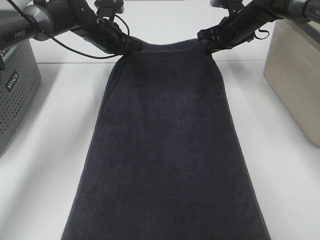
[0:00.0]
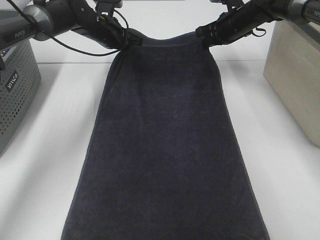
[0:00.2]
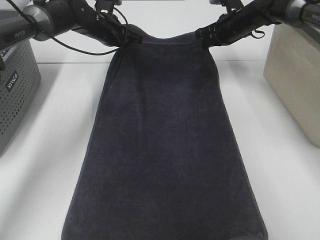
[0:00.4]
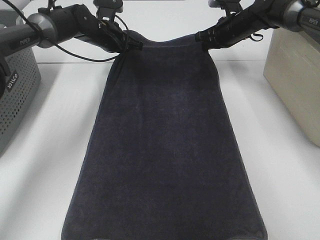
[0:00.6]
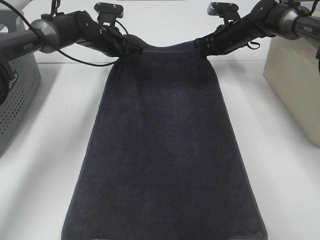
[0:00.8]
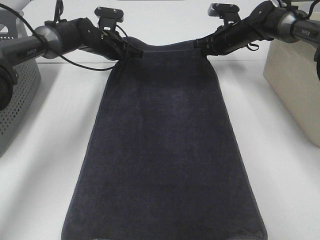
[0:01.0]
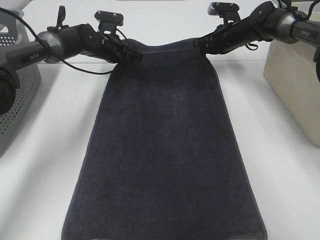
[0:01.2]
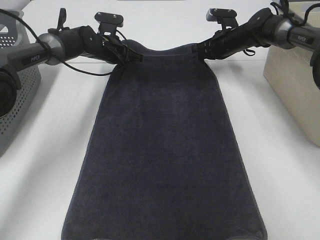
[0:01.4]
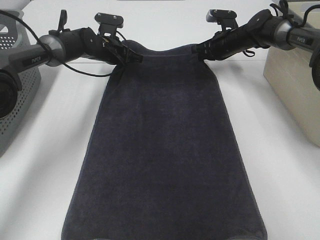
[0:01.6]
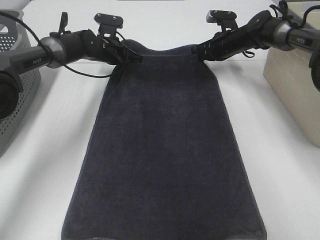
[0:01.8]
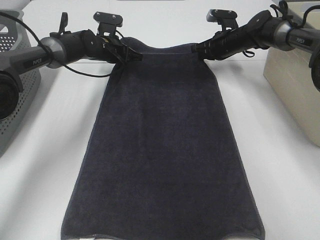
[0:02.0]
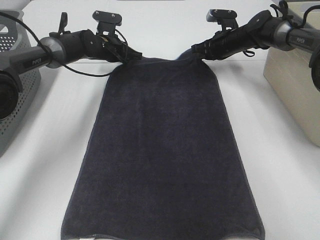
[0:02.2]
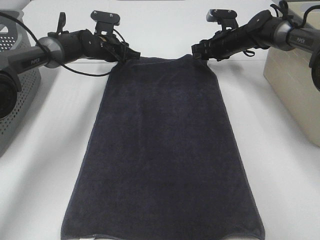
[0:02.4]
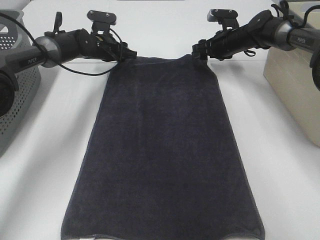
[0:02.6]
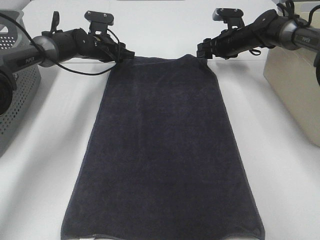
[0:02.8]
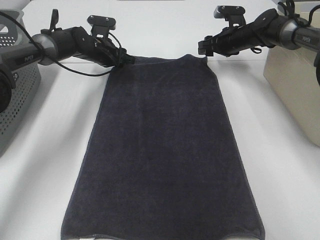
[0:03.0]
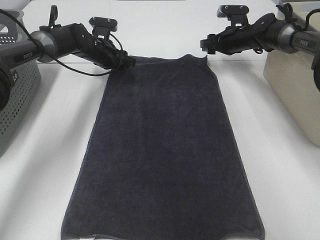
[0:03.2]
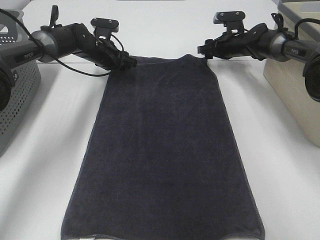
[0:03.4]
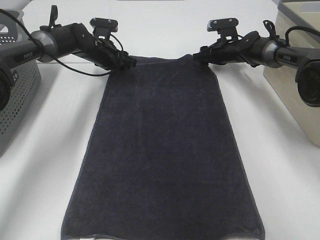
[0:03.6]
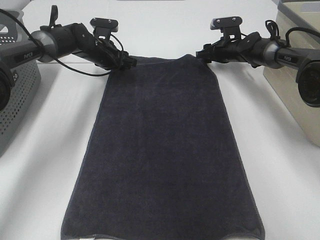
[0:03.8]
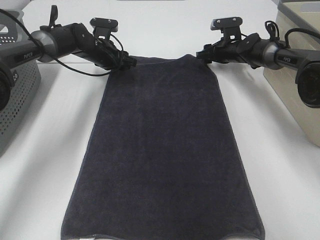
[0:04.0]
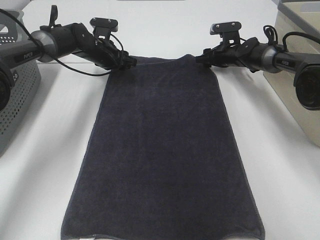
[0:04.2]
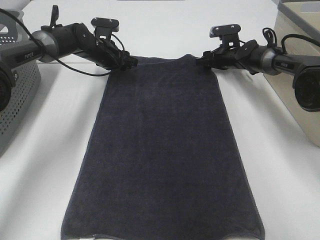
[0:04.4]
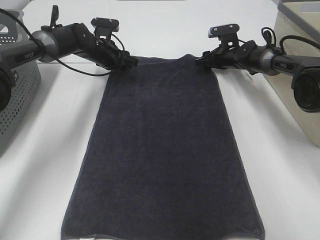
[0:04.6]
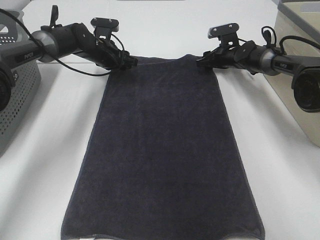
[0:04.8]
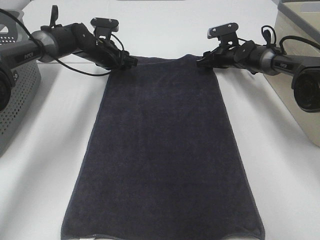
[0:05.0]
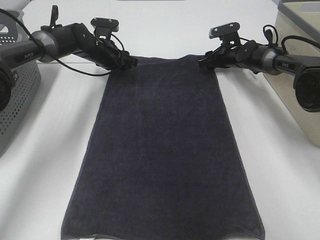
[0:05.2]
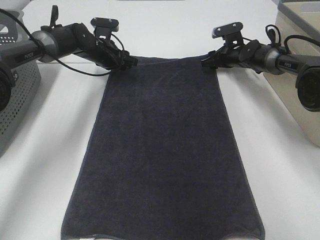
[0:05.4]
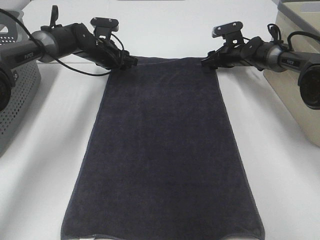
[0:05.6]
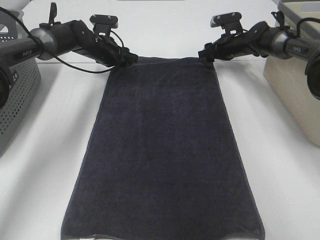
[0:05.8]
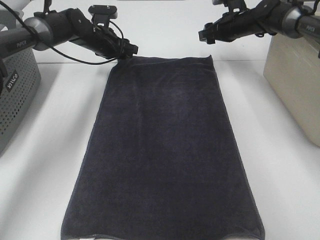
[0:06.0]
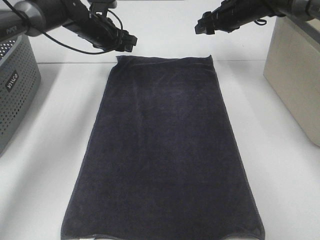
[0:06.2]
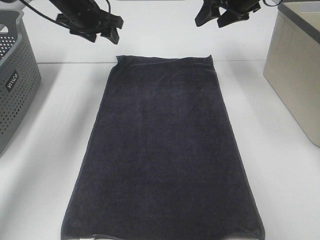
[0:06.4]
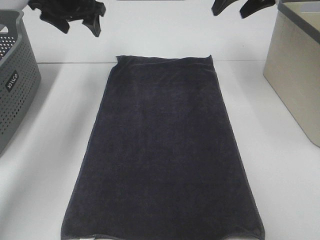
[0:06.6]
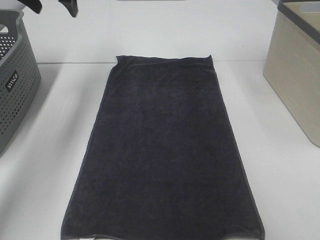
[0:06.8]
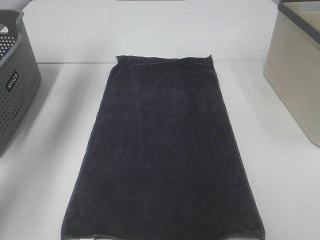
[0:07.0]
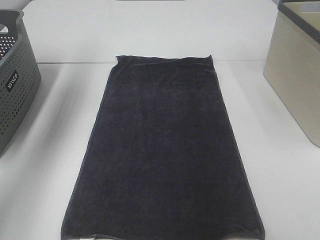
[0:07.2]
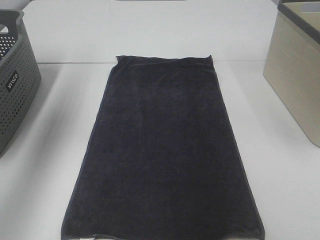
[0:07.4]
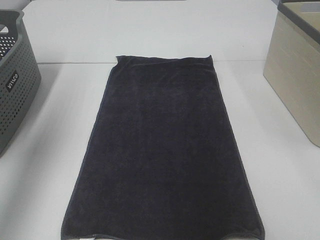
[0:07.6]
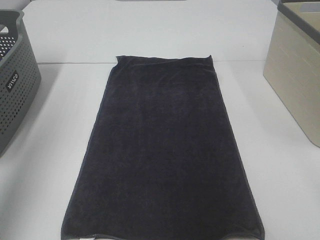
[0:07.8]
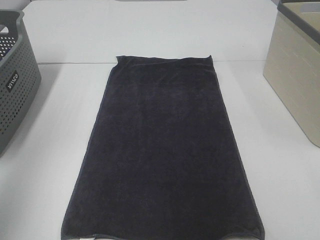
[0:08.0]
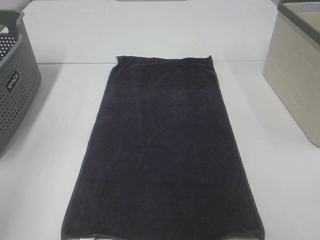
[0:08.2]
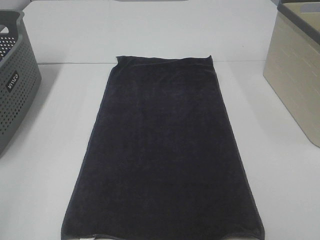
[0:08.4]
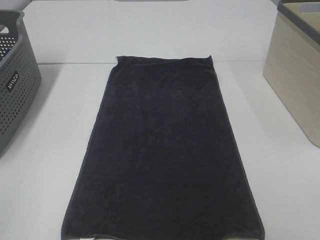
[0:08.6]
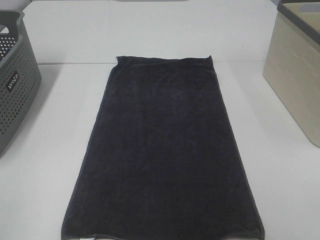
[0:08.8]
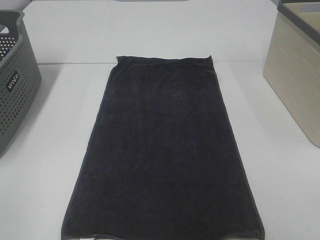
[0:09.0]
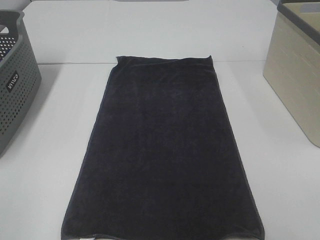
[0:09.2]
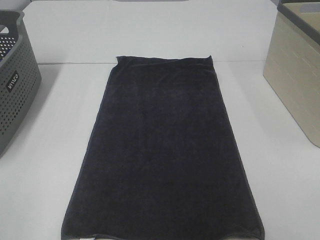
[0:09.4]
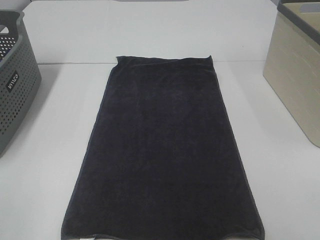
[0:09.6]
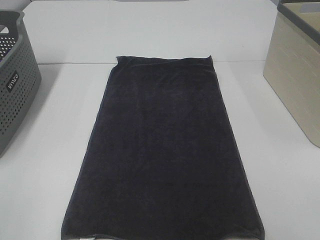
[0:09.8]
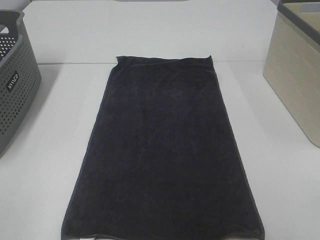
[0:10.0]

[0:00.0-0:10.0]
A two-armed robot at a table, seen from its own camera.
Task of the whole recording: Remove the towel and place it.
0:00.0 to 0:01.4: The grippers both shift downward by roughly 5 cm.
0:01.4 to 0:02.8: The left gripper opens. The right gripper opens up.
0:02.8 to 0:04.2: The right gripper goes some 5 cm downward.
0:04.2 to 0:05.8: The grippers stay close to where they were, moving slightly.
0:05.8 to 0:07.2: The left gripper shifts about 35 cm upward, backward and to the left. Meanwhile the right gripper is displaced upward and backward by some 40 cm.
0:07.2 to 0:08.6: The left gripper moves backward, approximately 40 cm.

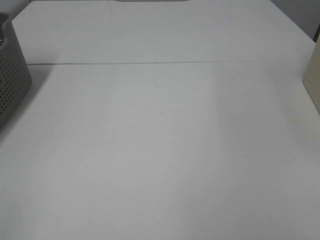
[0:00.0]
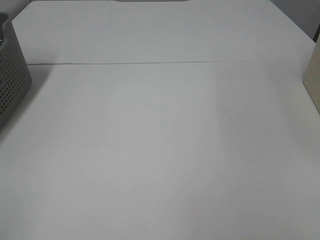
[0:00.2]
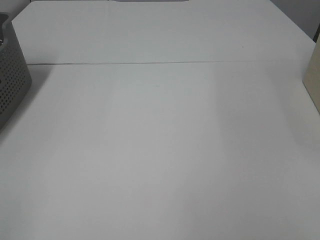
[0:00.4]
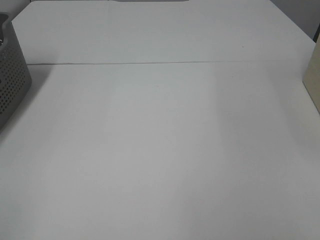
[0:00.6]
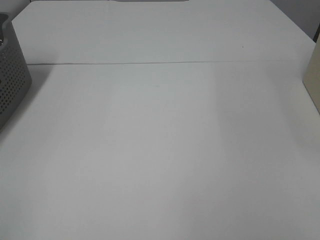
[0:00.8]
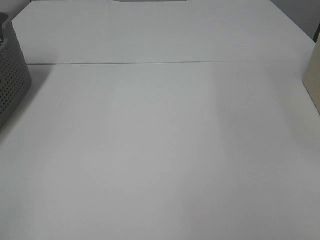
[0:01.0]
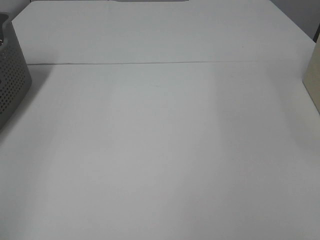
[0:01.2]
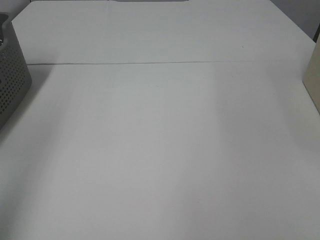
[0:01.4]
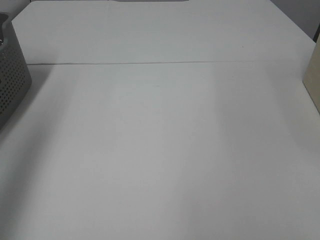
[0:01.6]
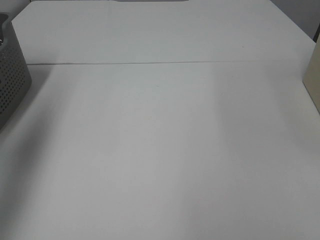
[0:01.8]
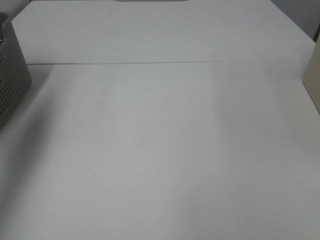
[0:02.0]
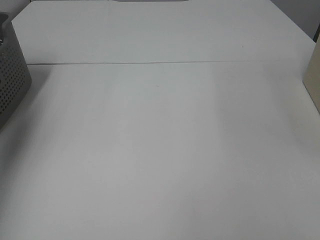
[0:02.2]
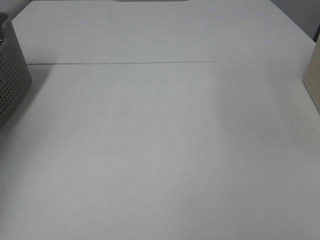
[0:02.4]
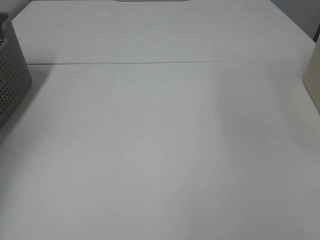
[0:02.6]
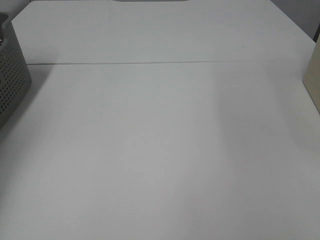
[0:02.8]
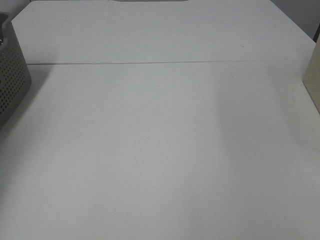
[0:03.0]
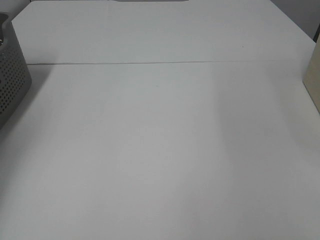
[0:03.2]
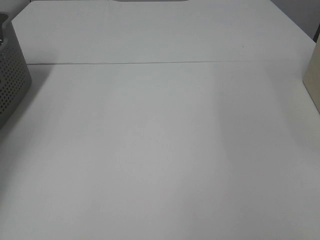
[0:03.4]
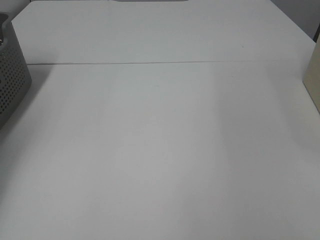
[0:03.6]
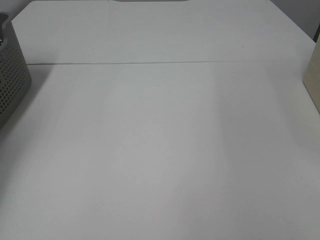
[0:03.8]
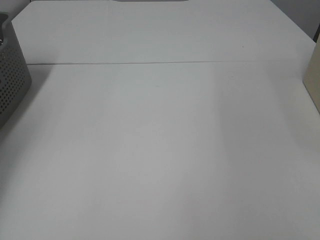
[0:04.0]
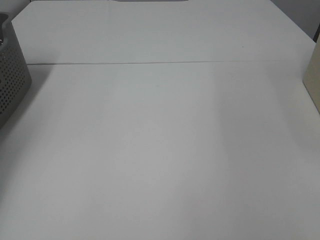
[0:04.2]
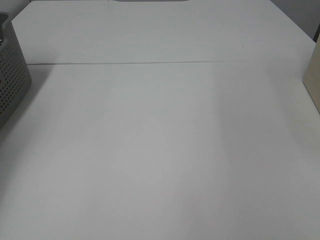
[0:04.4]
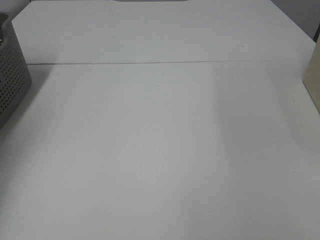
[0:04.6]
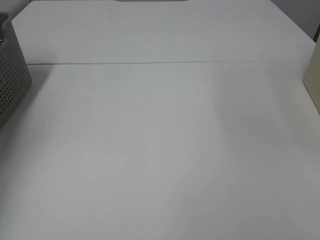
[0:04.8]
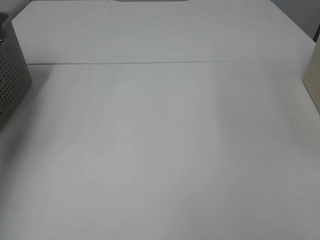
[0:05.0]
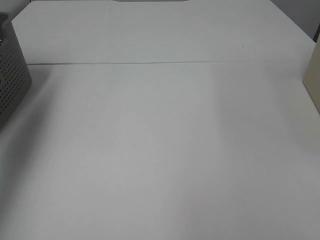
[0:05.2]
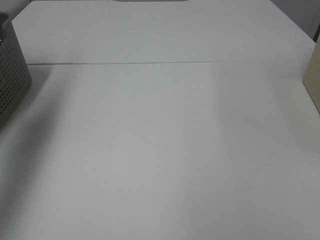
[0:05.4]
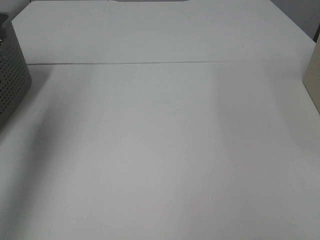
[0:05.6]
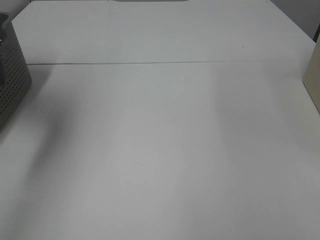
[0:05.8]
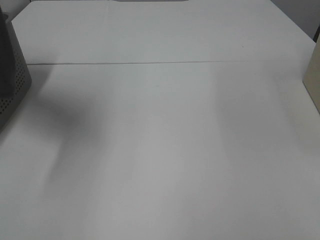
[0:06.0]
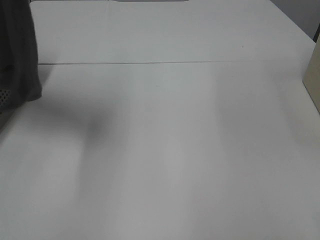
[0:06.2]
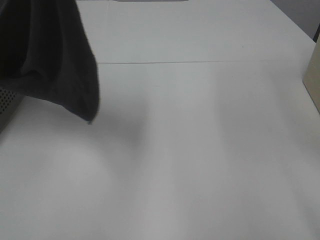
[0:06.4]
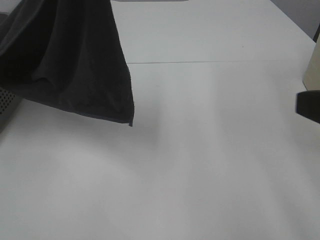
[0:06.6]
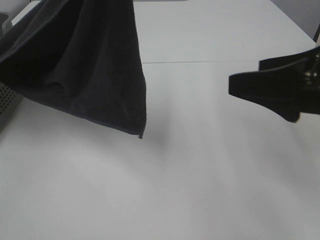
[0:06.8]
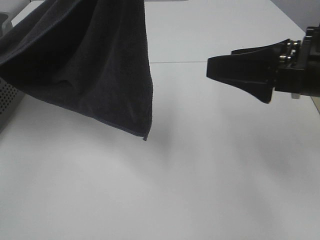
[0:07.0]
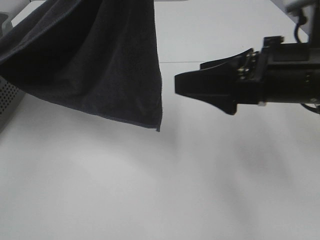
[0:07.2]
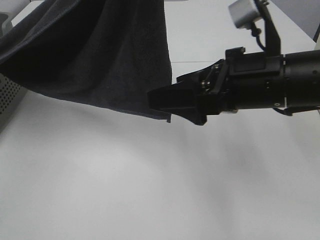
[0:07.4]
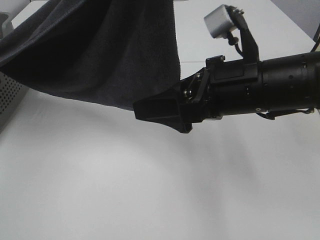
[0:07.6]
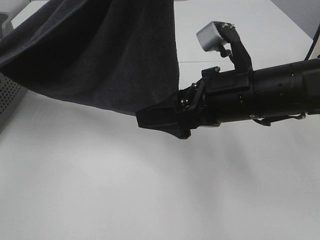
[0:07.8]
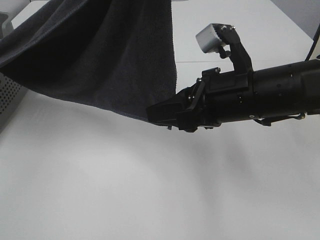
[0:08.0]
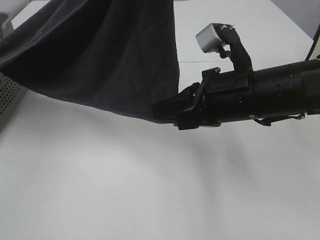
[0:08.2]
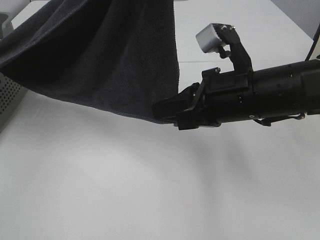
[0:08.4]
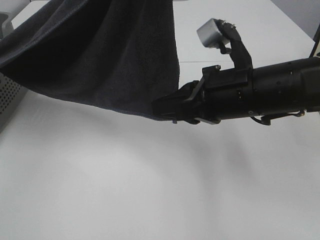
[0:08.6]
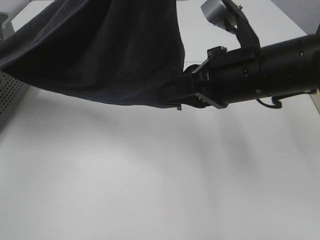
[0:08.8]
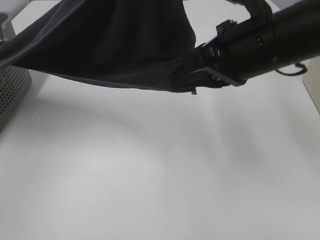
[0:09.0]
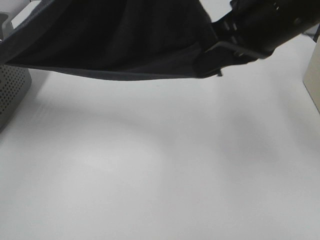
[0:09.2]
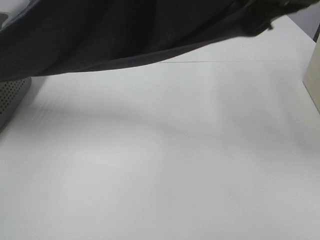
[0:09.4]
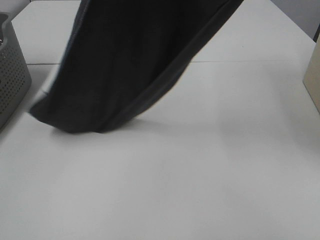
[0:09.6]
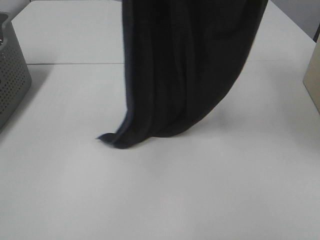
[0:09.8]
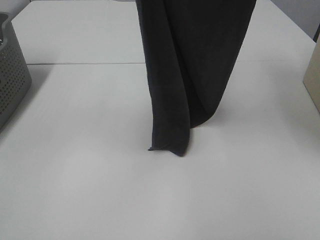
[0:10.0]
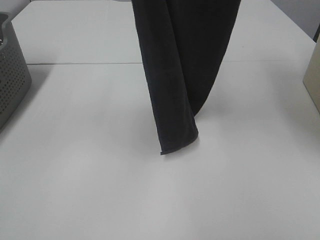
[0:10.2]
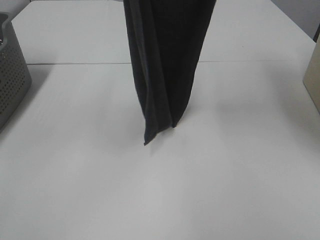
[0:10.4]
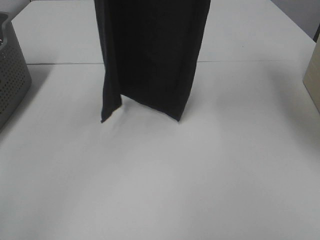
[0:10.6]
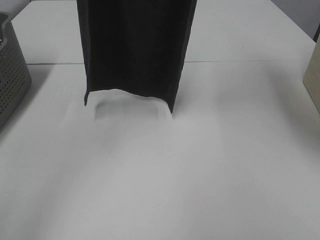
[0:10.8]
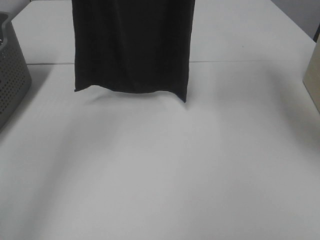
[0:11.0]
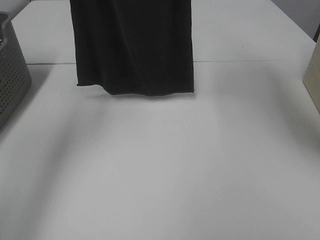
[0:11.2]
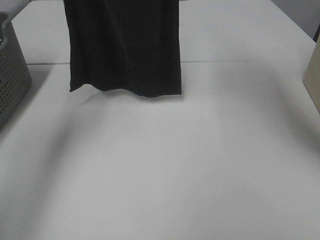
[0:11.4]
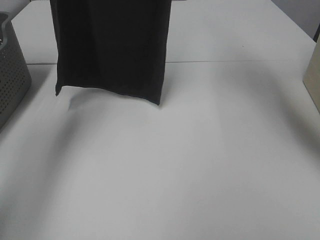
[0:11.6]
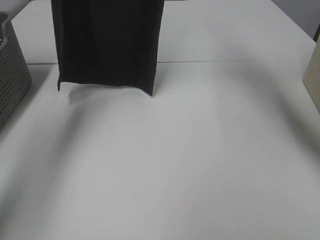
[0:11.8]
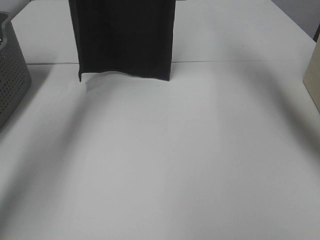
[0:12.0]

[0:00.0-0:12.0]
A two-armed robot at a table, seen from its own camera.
Task of the whole recording: Remove the towel and place it.
Step, 0:05.8 to 0:09.8: Right hand: grab a corner of the grey towel and straighten it.
0:00.0 to 0:01.6: The left gripper goes some 25 cm forward and upward.
0:01.6 to 0:03.0: The left gripper goes roughly 30 cm forward, downward and to the left.
0:04.4 to 0:06.0: The left gripper is displaced upward, to the right and backward by roughly 40 cm.
0:06.0 to 0:07.6: The right gripper is displaced forward and to the left by about 30 cm. Meanwhile the left gripper is displaced to the right by approximately 15 cm.
0:07.6 to 0:09.0: The right gripper heads upward, covering some 5 cm, and closes its fingers.
0:09.0 to 0:10.4: The left gripper is displaced forward, to the left and upward by approximately 10 cm. The right gripper heads upward, covering roughly 25 cm.
0:10.4 to 0:12.0: The two grippers go about 15 cm forward.
